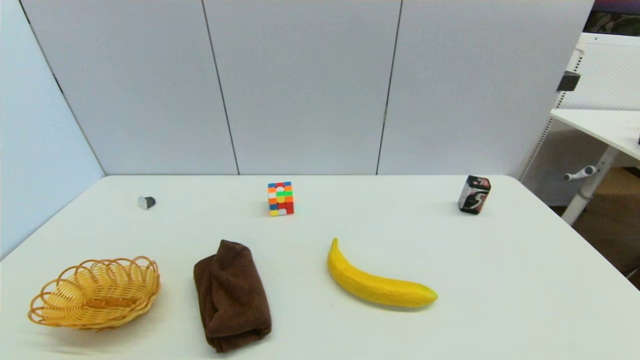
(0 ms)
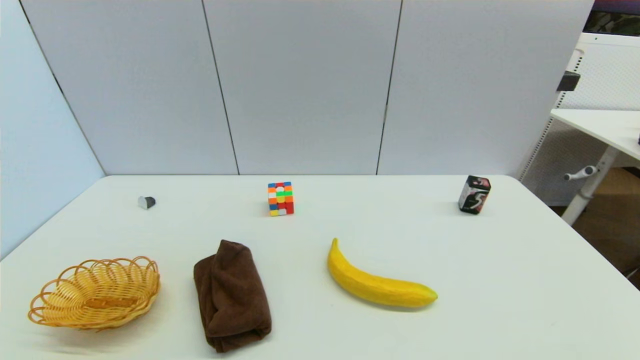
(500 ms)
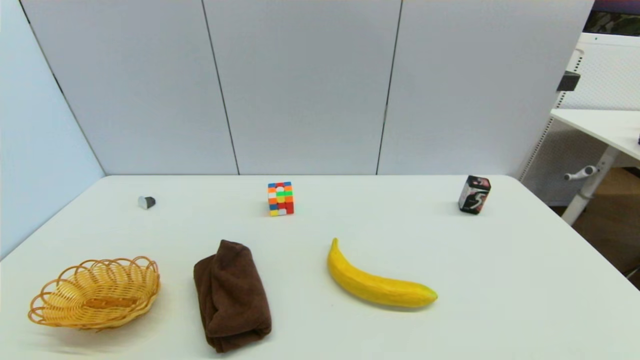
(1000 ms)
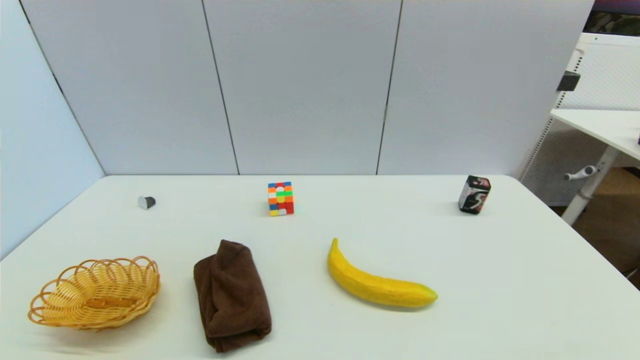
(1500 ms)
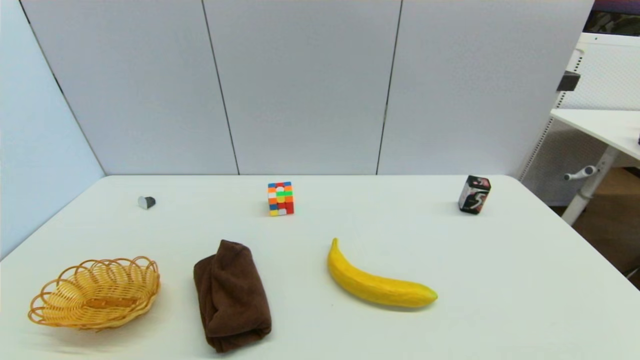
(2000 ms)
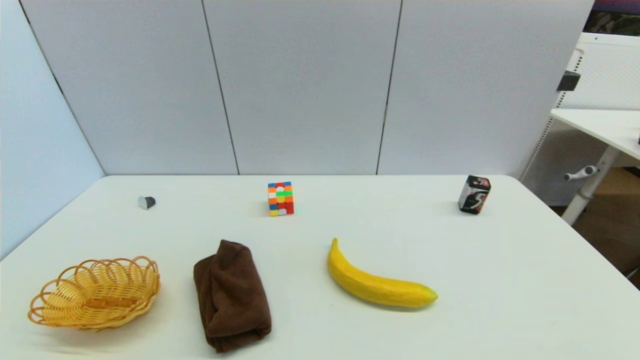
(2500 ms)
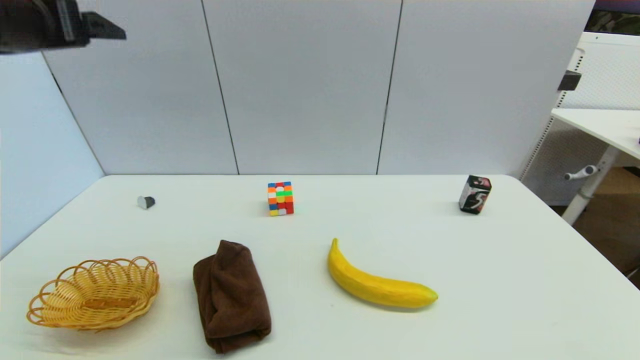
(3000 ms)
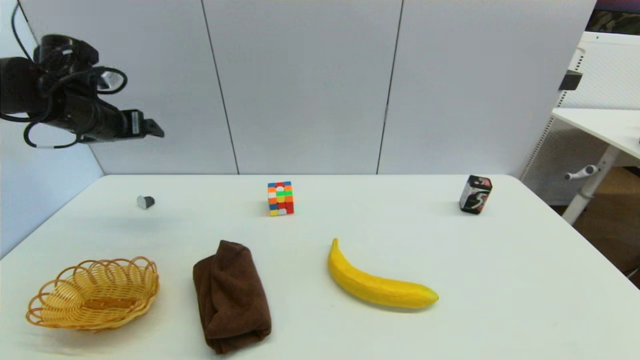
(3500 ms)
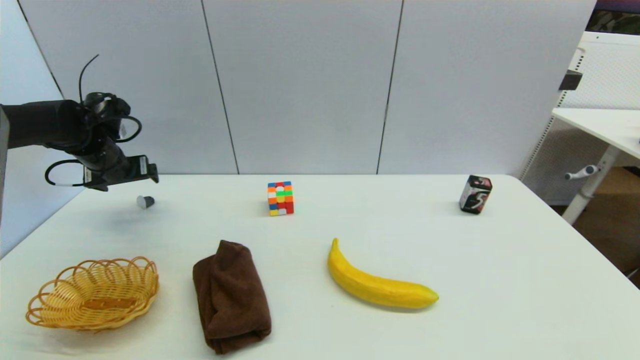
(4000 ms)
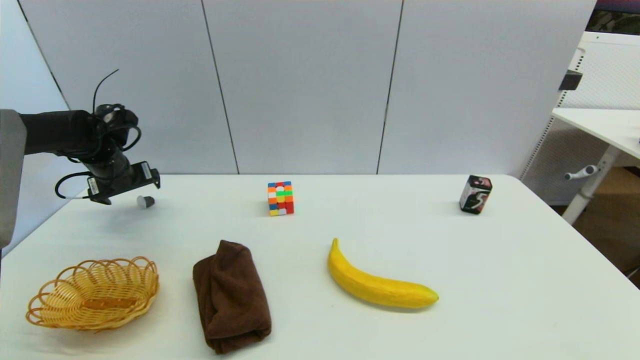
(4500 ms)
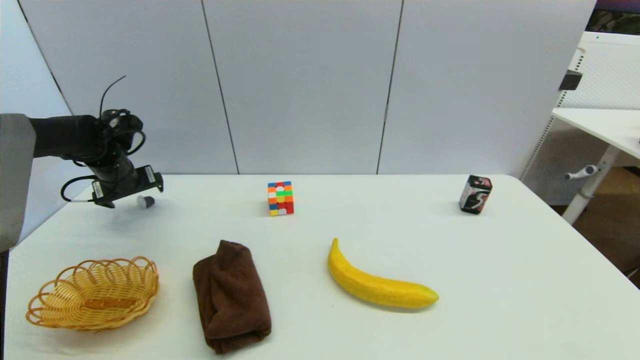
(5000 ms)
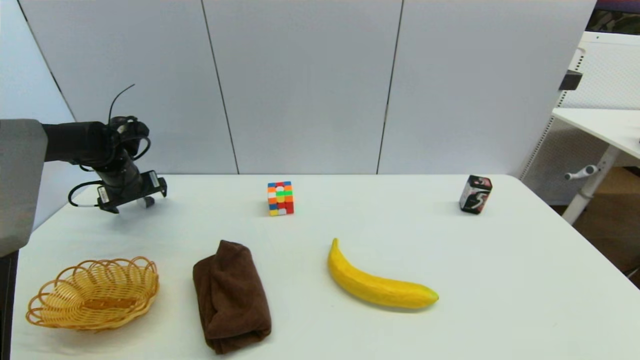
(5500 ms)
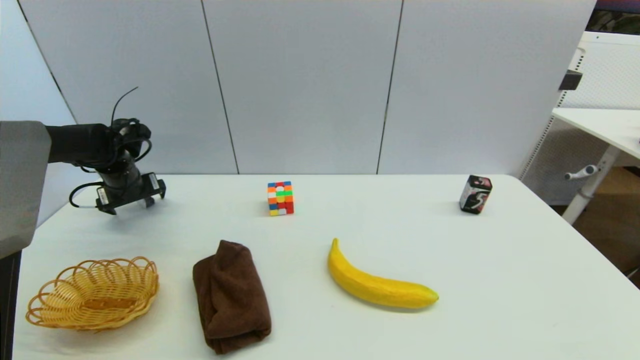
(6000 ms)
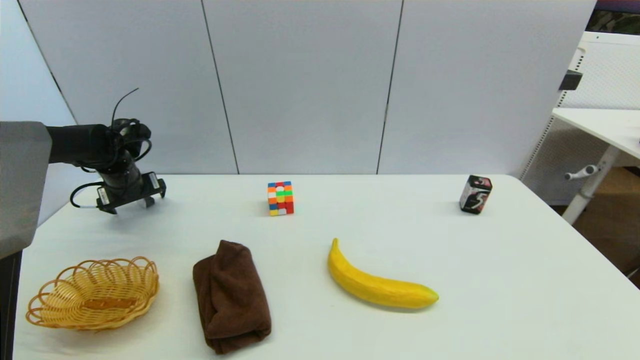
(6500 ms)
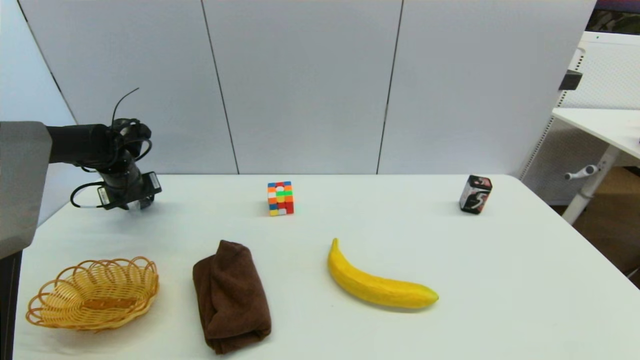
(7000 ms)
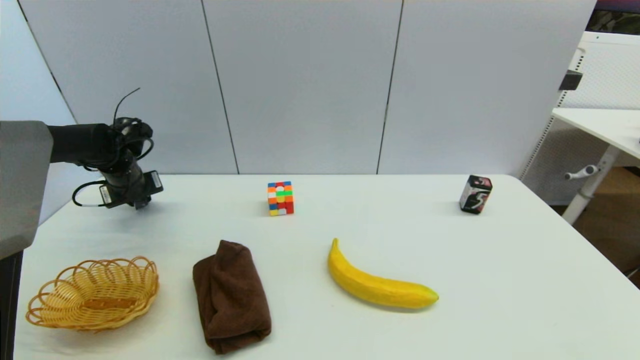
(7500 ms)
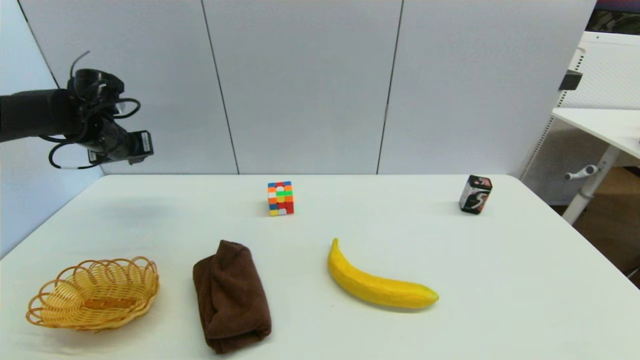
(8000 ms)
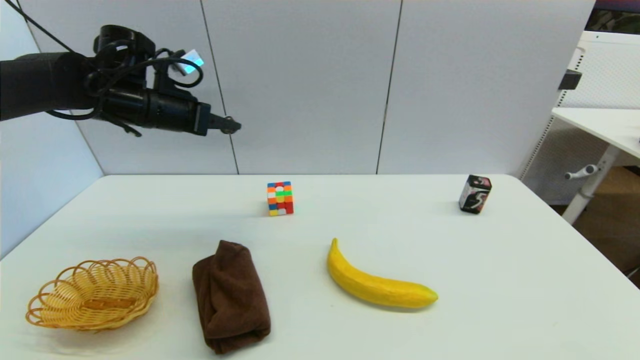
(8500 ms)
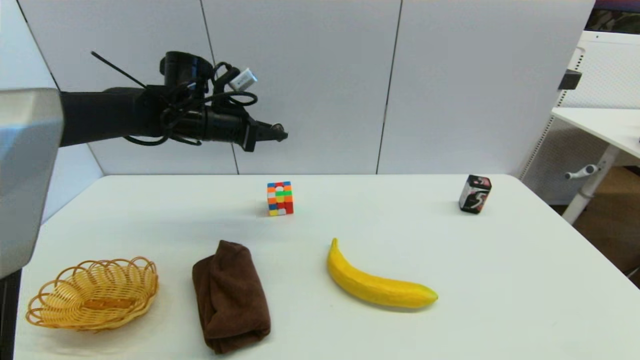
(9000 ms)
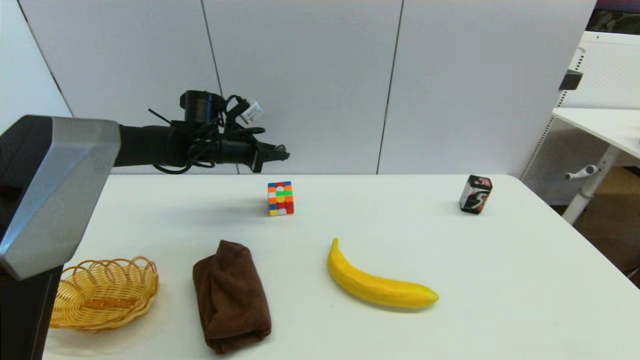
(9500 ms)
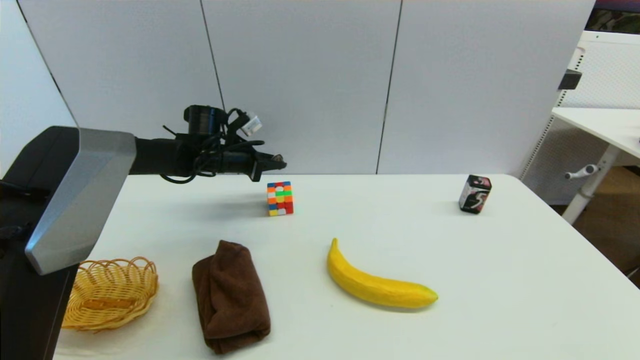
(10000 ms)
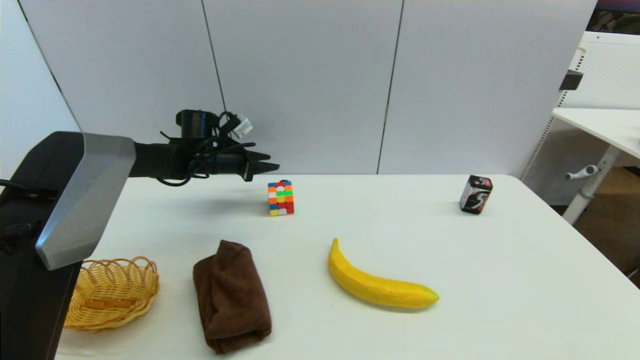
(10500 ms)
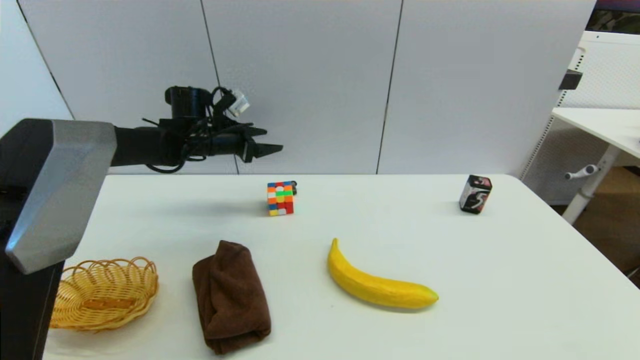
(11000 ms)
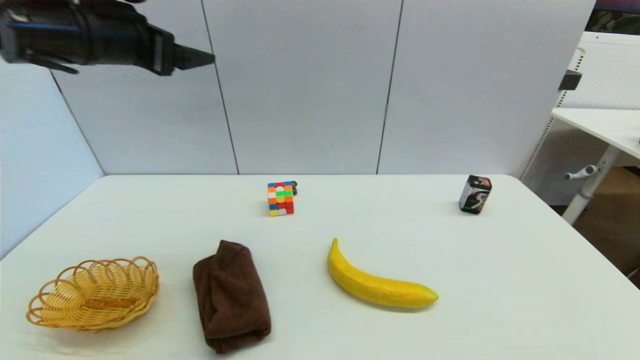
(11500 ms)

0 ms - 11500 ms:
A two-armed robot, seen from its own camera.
Step, 2000 ms - 7000 ms: Grasp the coffee capsule with left gripper.
Step, 7500 ms - 10500 ms: Place the coffee capsule on the table with left gripper.
2000 ms - 4000 ms: The left gripper travels forward by some 40 cm.
4000 ms - 6000 ms: The left gripper shifts by roughly 5 cm.
6000 ms - 7500 ms: The left gripper closes up.
7500 ms - 9500 ms: The left gripper shifts roughly 20 cm to the right.
9500 ms - 11500 ms: The left gripper travels upward and backward by about 25 cm, and opens.

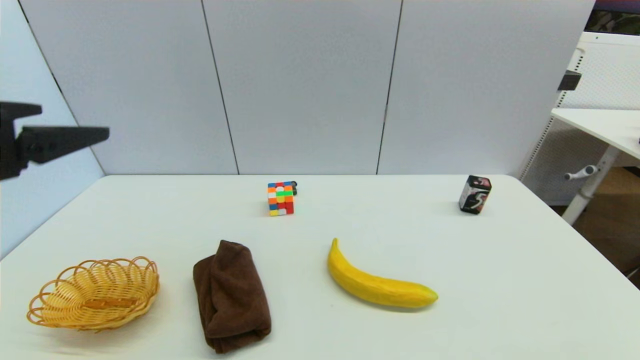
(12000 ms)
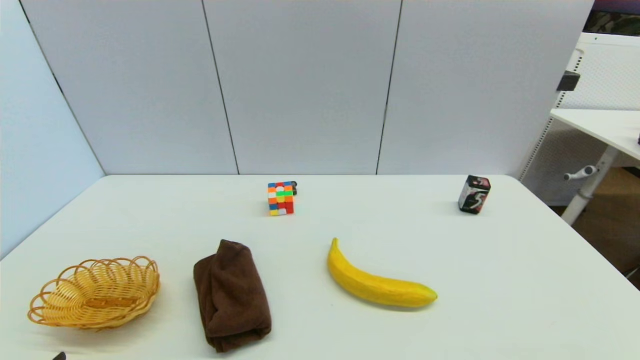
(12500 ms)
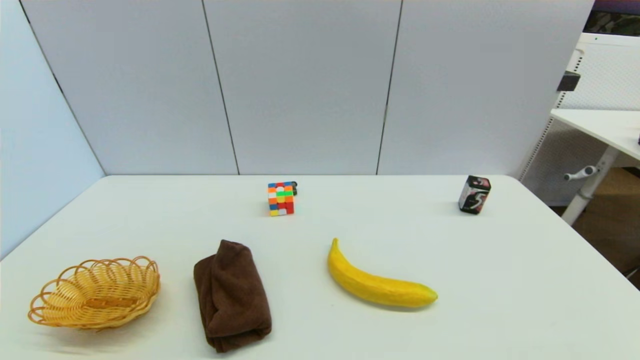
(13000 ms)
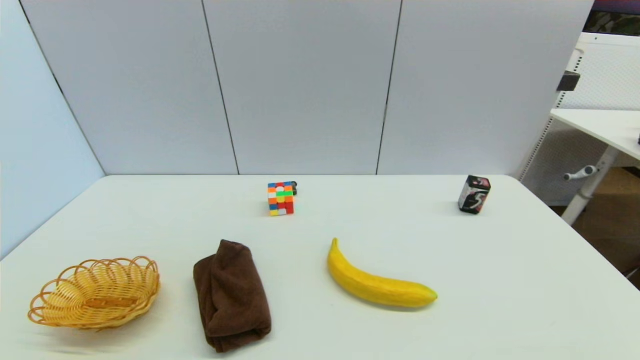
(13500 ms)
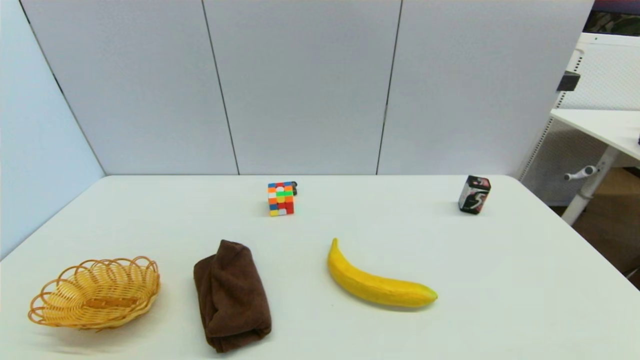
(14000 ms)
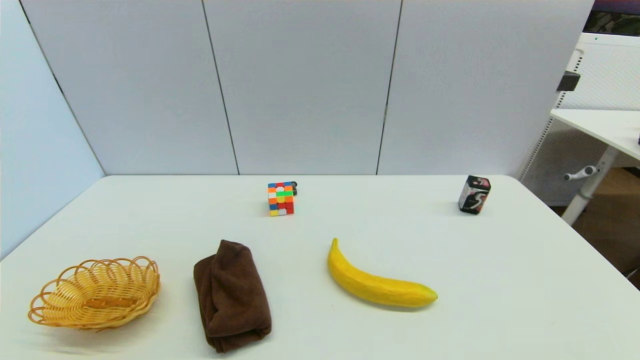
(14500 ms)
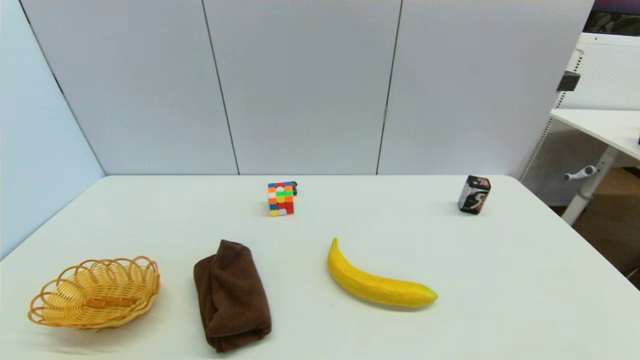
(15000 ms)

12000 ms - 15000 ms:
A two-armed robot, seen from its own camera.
12000 ms - 13500 ms: The left gripper goes about 30 cm downward and backward.
13500 ms - 15000 ms: Neither gripper changes place.

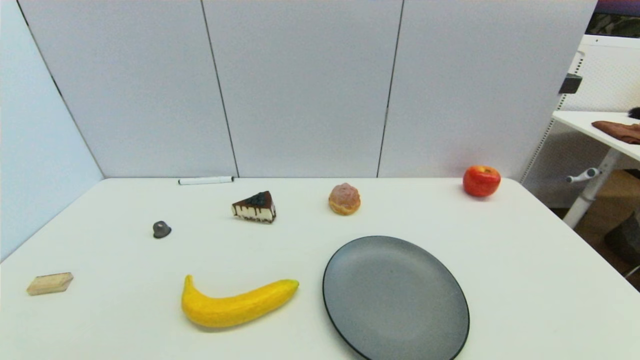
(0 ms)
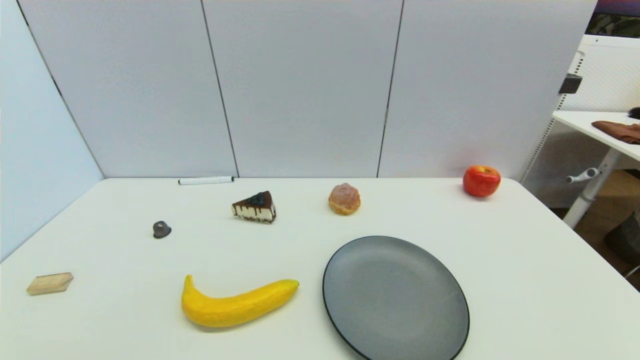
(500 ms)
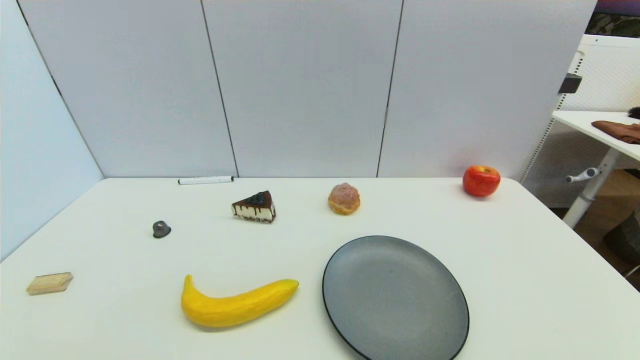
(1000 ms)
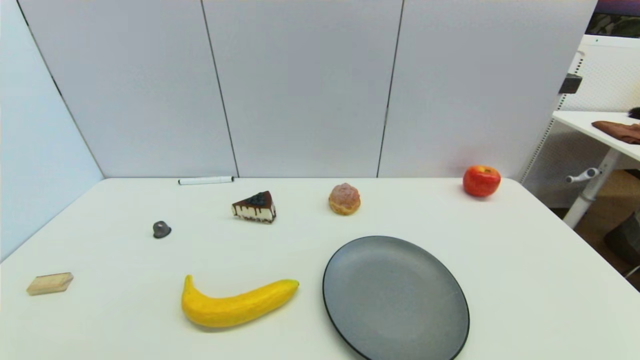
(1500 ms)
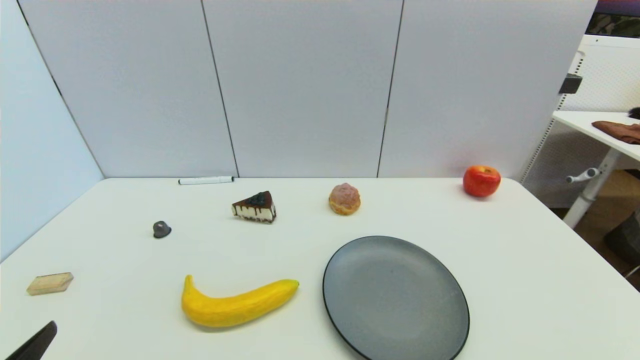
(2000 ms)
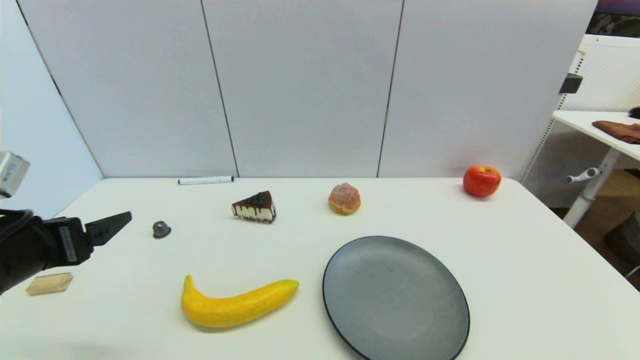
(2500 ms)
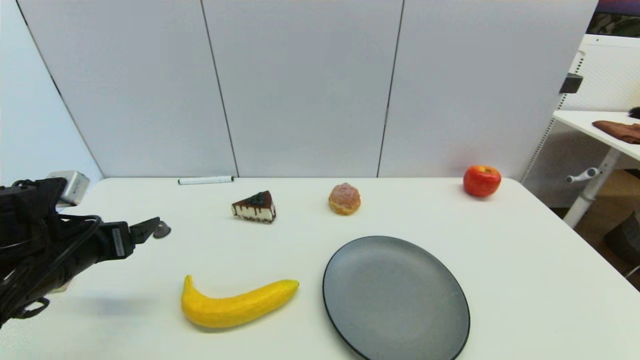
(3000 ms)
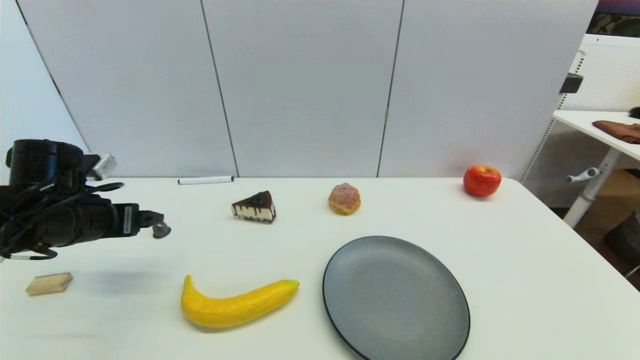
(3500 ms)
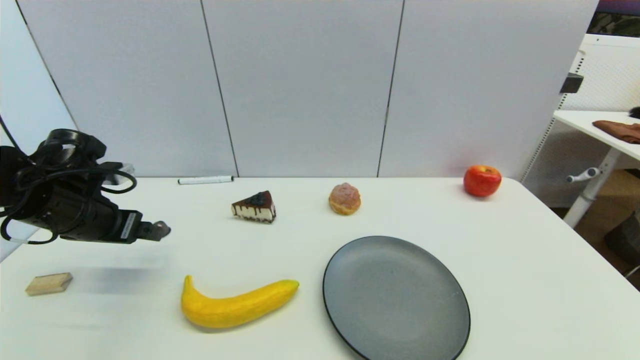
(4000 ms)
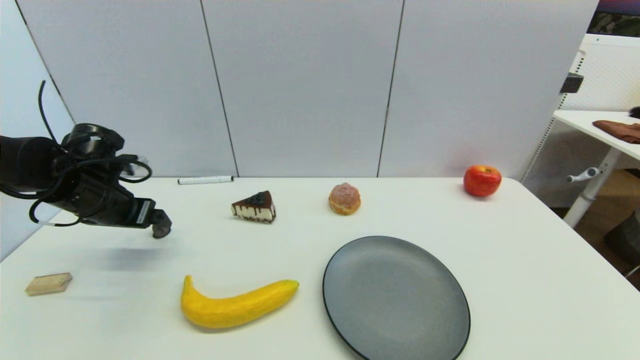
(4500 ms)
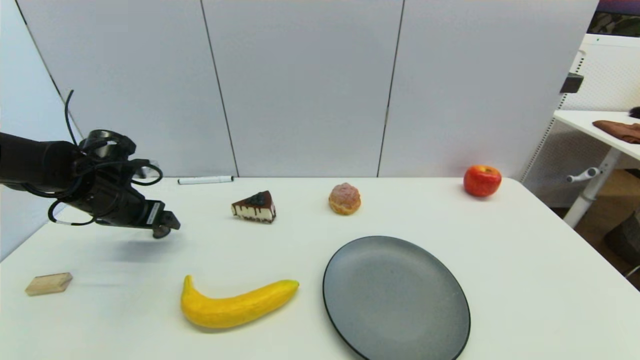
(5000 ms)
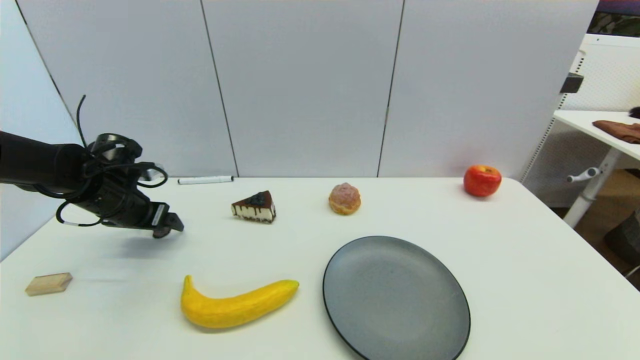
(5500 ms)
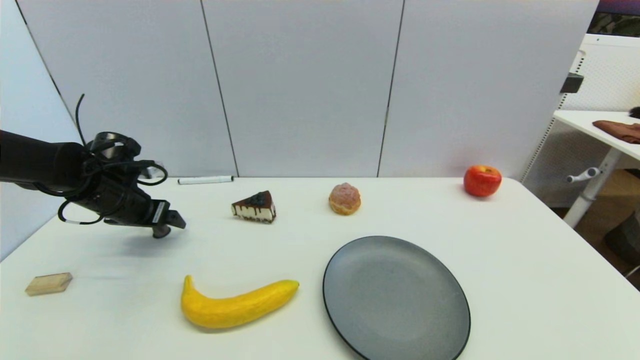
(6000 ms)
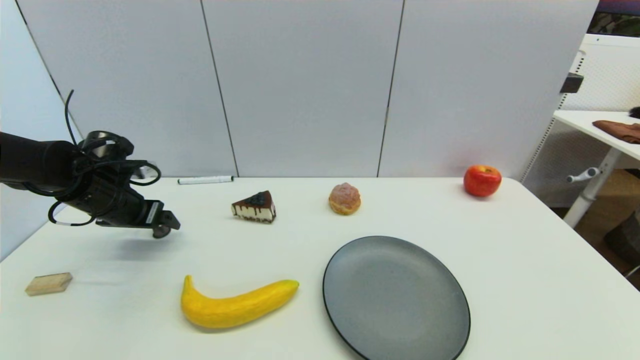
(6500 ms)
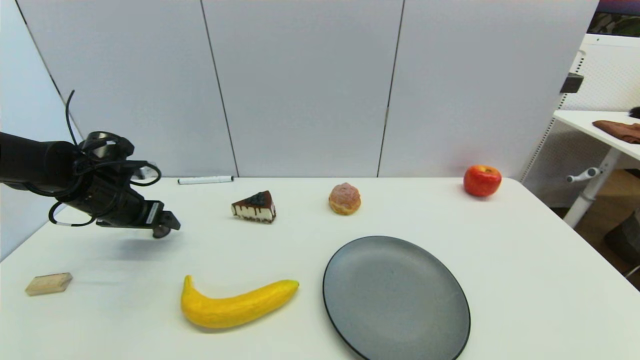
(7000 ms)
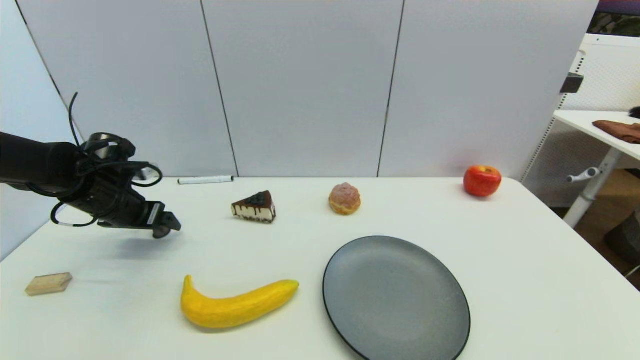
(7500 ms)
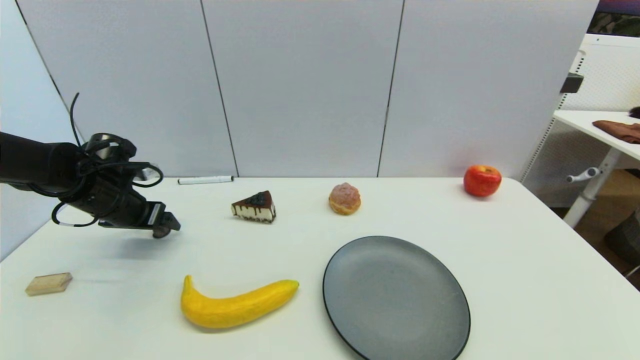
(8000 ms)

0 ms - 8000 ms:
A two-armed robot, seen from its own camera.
2000 ms - 4000 ms: The left gripper shifts roughly 25 cm forward.
4000 ms - 6000 ms: The left gripper is displaced forward by approximately 5 cm.
6000 ms - 8000 ms: Both grippers stay about where they are.
